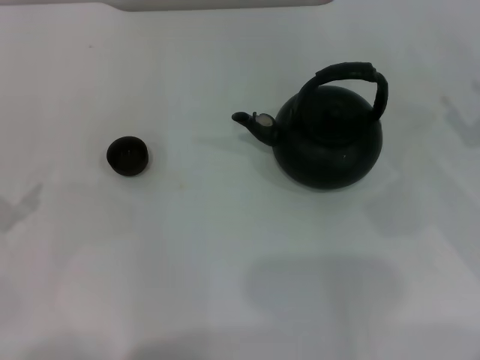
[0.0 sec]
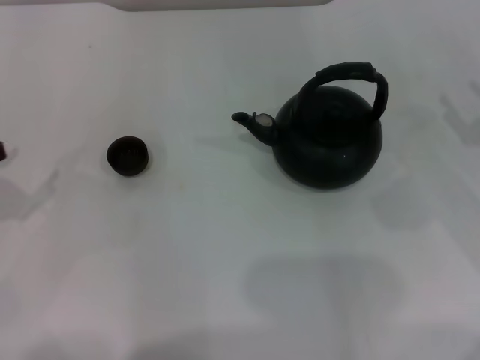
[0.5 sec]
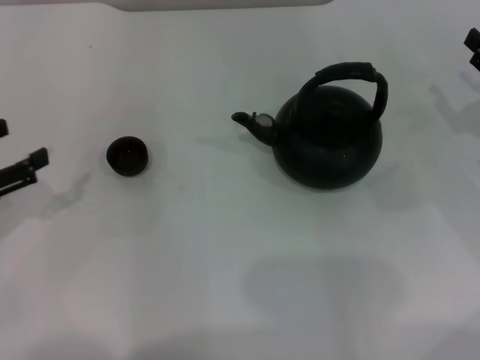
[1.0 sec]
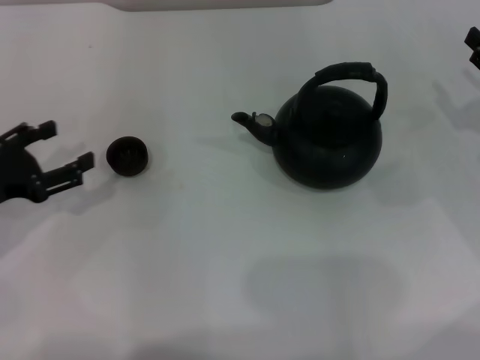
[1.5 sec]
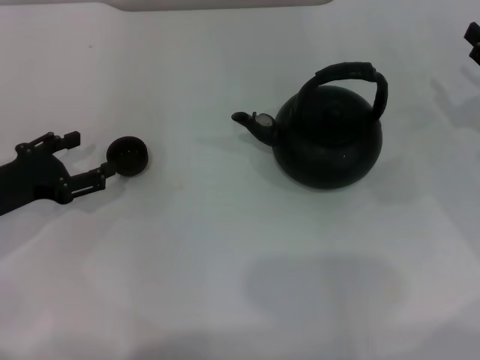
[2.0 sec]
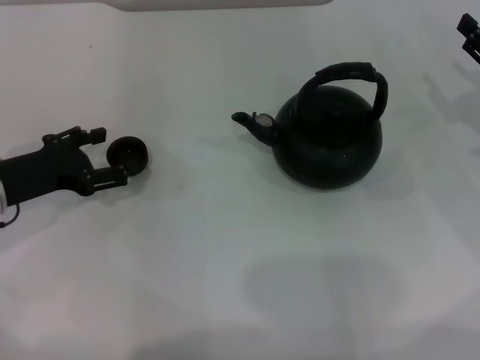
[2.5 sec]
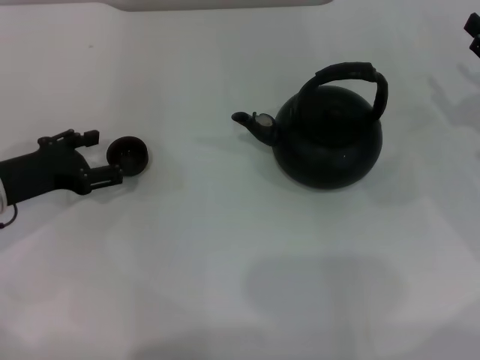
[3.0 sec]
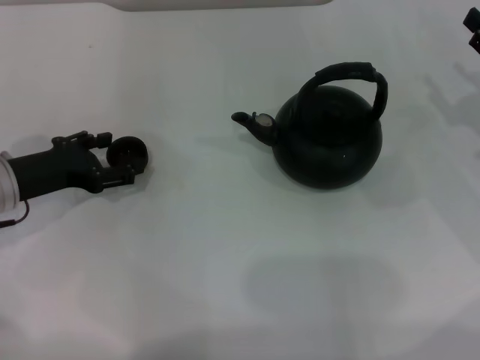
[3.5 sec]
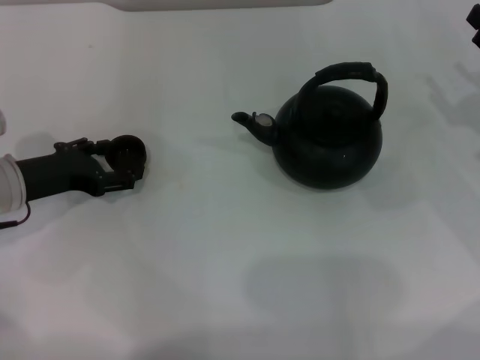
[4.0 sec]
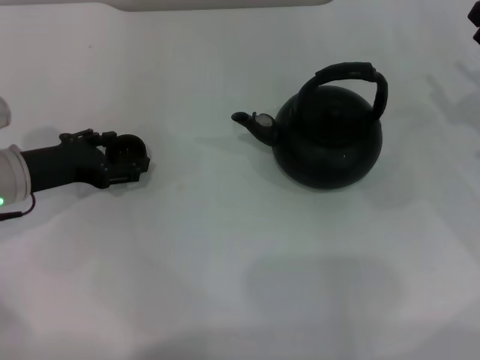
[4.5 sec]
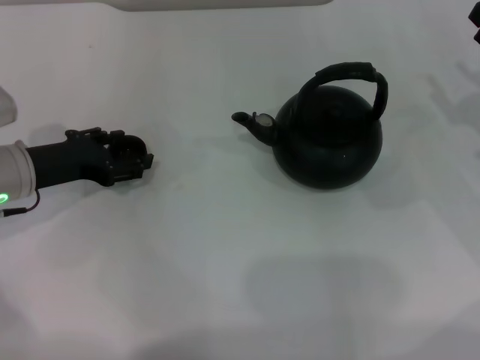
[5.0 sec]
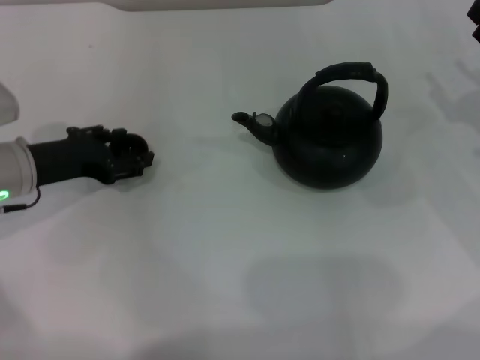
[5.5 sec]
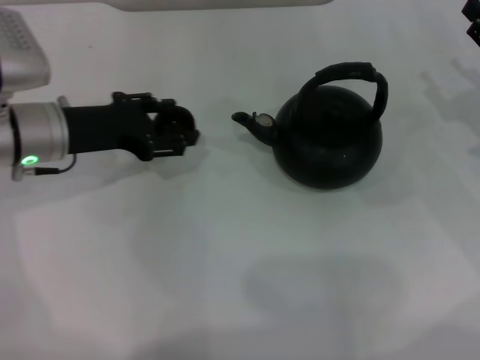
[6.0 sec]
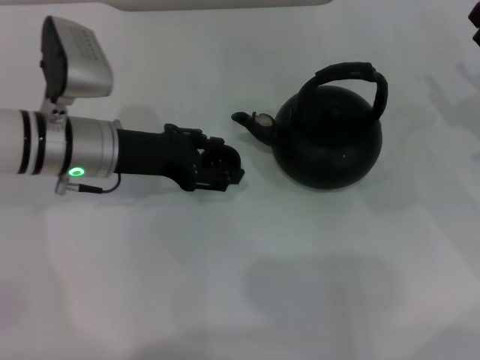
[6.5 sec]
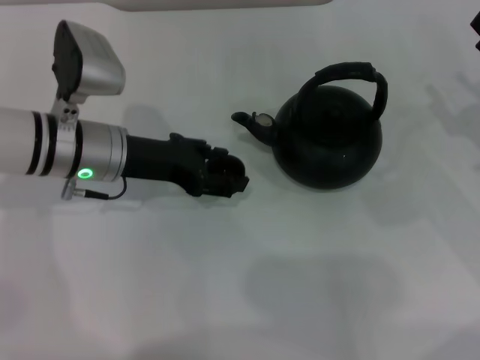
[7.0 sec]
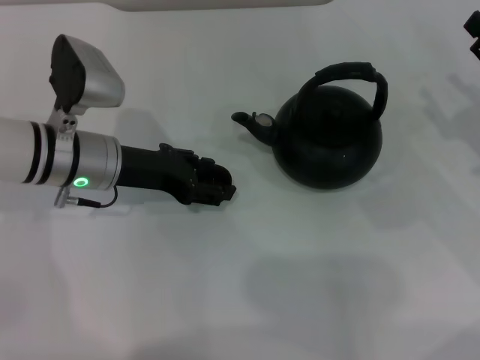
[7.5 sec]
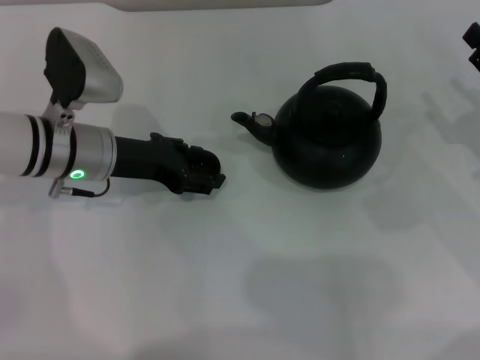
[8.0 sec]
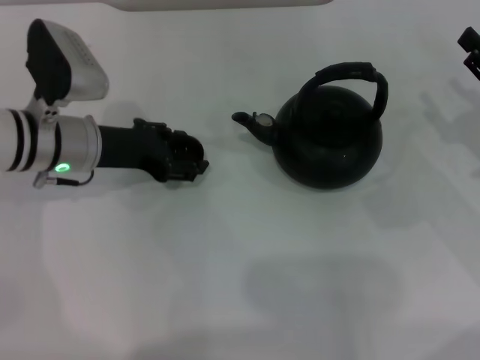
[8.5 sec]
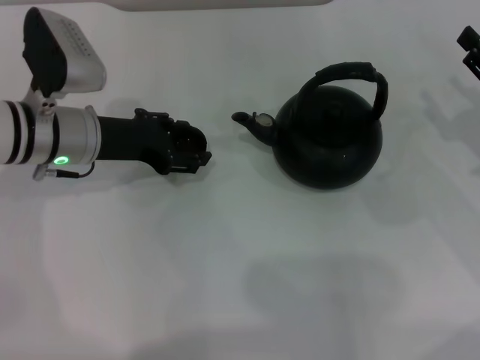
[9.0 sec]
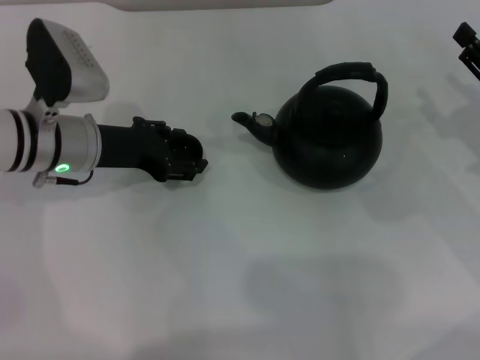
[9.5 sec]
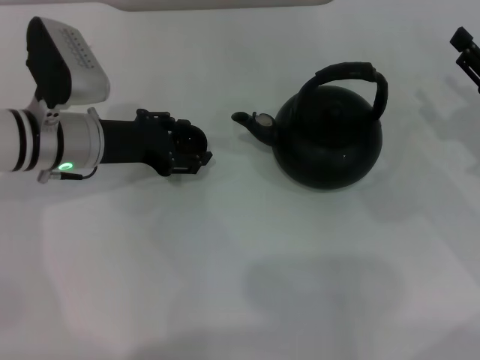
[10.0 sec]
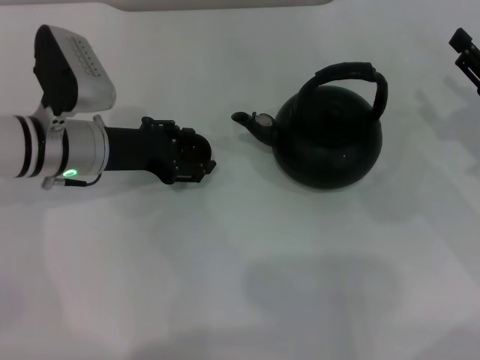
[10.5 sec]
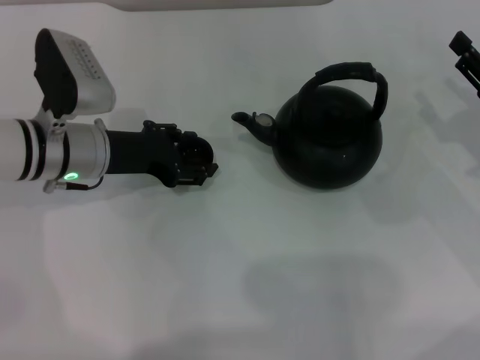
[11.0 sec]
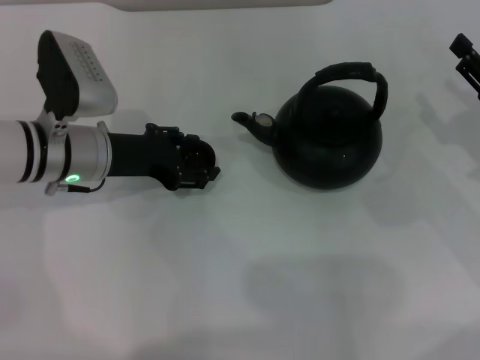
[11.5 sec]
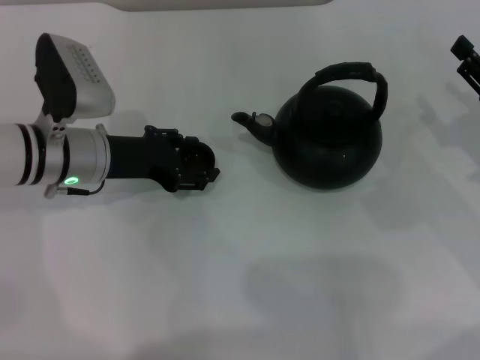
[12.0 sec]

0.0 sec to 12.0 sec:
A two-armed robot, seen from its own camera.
Task of the whole recording: Grasp the handle of the teapot with one hand and pour tea into the teacup.
Step, 0.0 sec to 5.5 sec: Pick up the teacup with the left gripper.
0.0 sec to 2.0 sec: The left gripper moves to the right, forward and downward, some 10 cm.
2.0 sec to 4.0 sec: The grippers stay close to where they were, moving slightly.
4.0 sec to 6.0 sec: The left gripper shifts about 5 cm to the right, and closes its fingers.
6.0 sec to 10.0 sec: The grippers move only a little.
10.0 sec to 12.0 sec: Both grippers stay put.

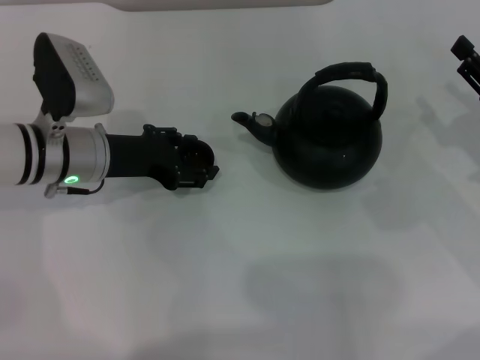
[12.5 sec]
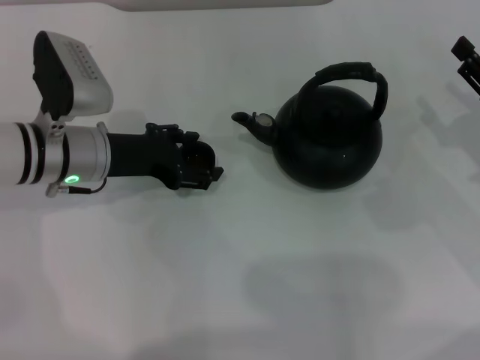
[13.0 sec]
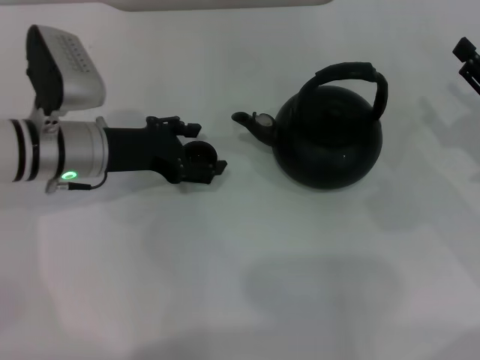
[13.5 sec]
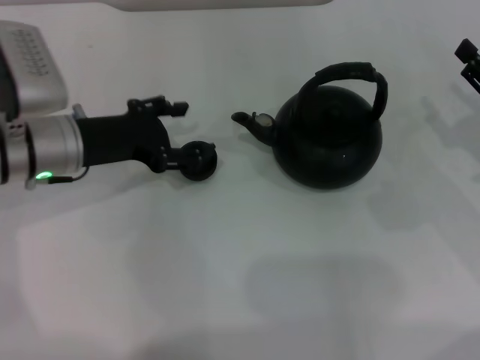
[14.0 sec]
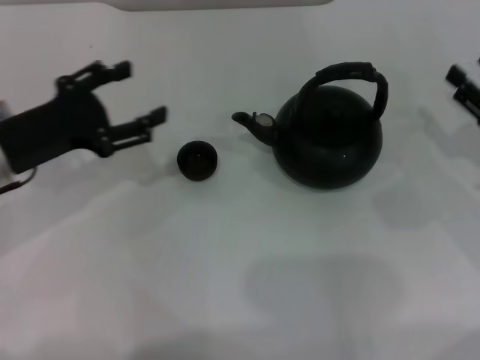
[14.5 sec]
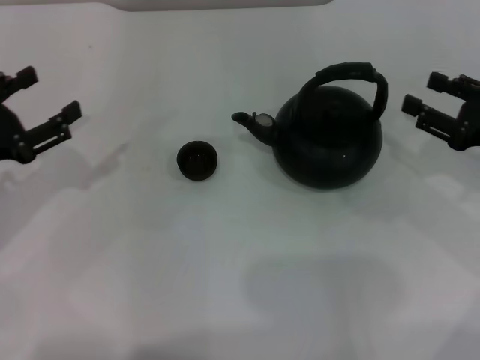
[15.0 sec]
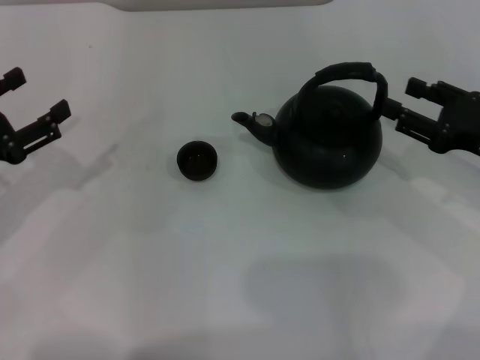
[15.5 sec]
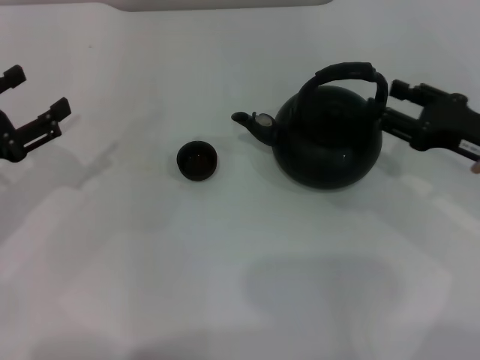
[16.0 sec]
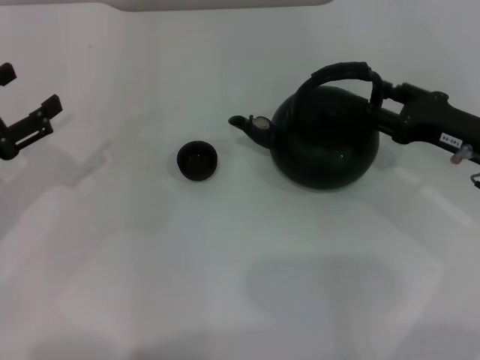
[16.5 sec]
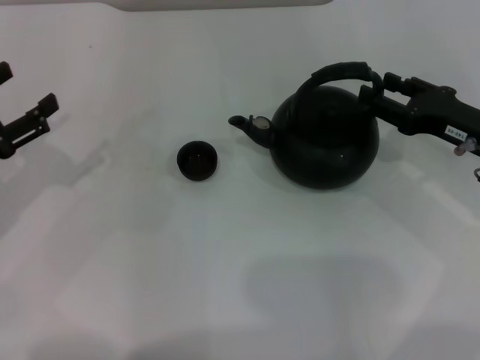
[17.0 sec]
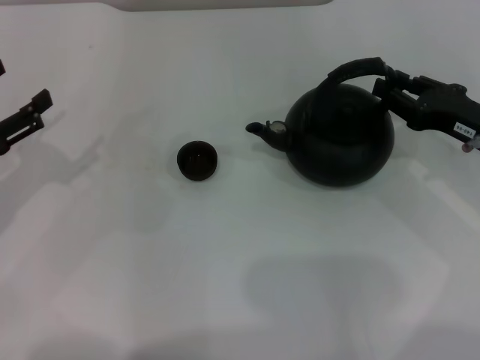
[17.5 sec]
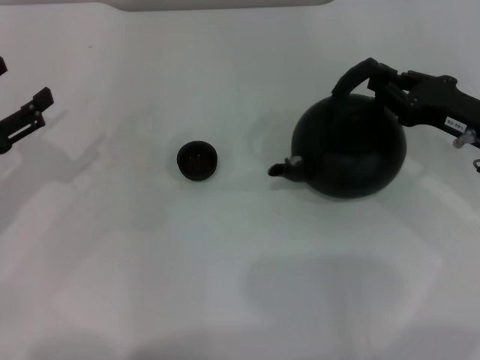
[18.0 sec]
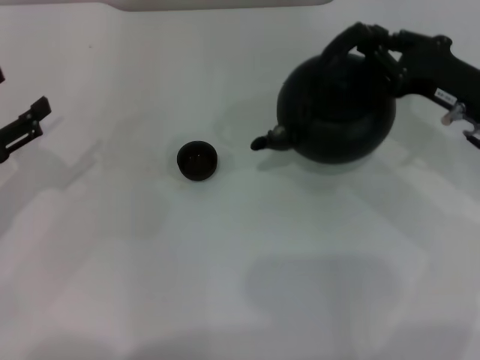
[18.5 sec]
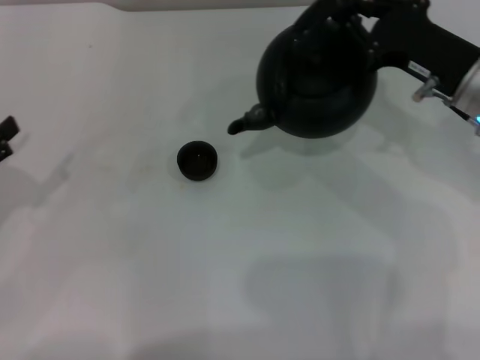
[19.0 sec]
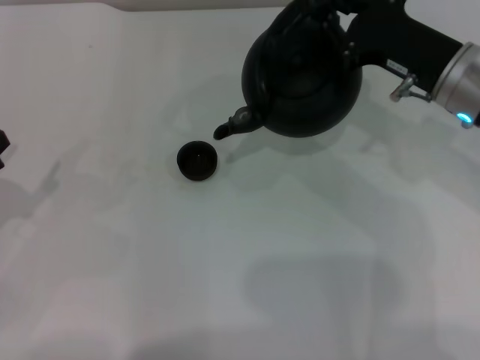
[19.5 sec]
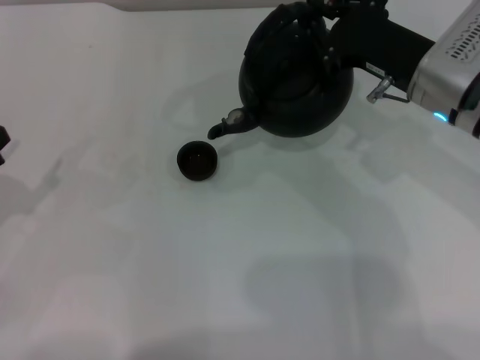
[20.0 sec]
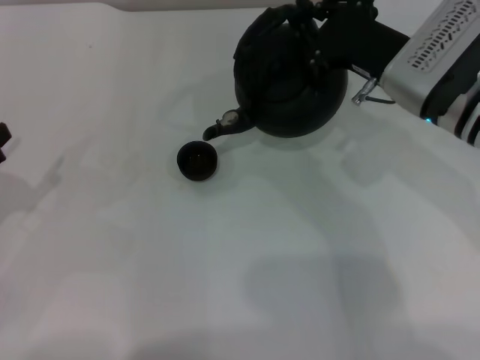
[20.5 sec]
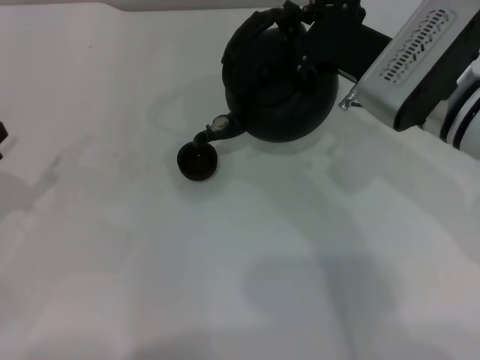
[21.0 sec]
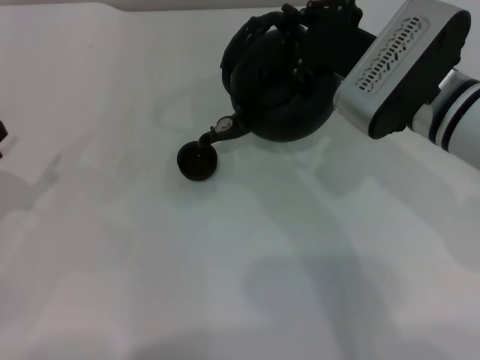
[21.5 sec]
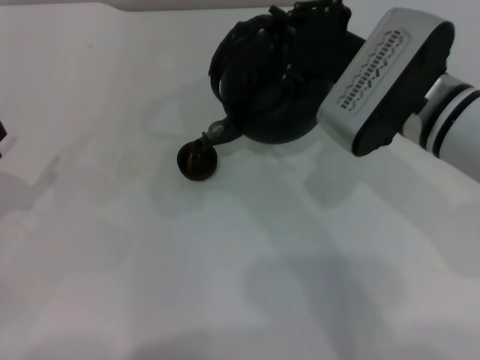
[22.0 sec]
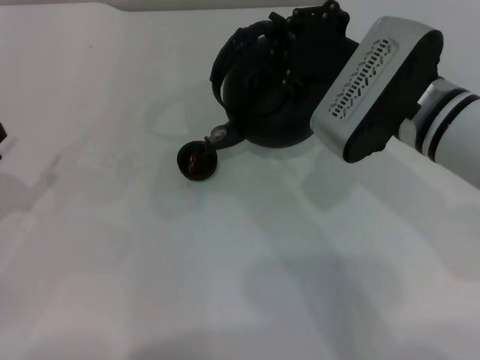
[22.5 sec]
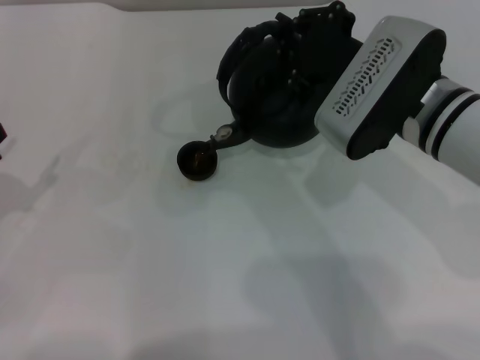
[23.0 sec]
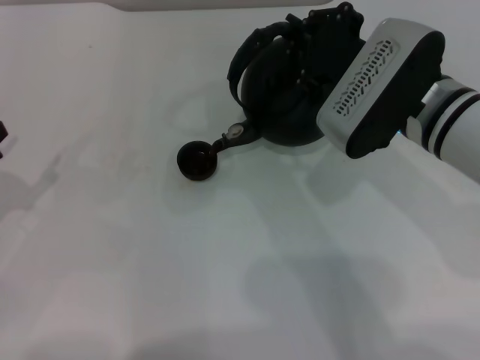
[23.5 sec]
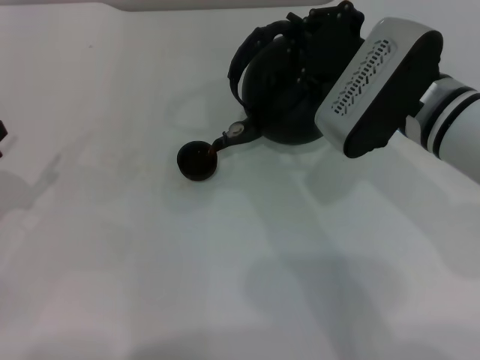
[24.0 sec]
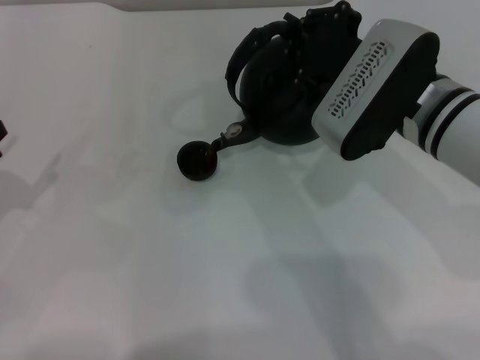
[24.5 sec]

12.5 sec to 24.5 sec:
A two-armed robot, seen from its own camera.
Task of the whole recording: Grasp the handle of the teapot with one hand and pour tea into the teacup.
Step, 14.0 sec to 18.5 sec: Pick up the teapot with the right gripper.
12.5 sec to 14.5 sec: The left gripper moves to the left and backward, approximately 10 cm, and opens its fingers.
14.5 sec to 16.5 sec: The two grippers go approximately 5 cm to the left.
16.5 sec to 18.5 sec: The right gripper closes its fingers.
18.5 sec to 20.5 sec: The right gripper heads to the left, covering approximately 10 cm.
20.5 sec to 22.5 sec: There are only small adjustments of the grippers.
22.5 sec to 24.5 sec: The two grippers keep their place.

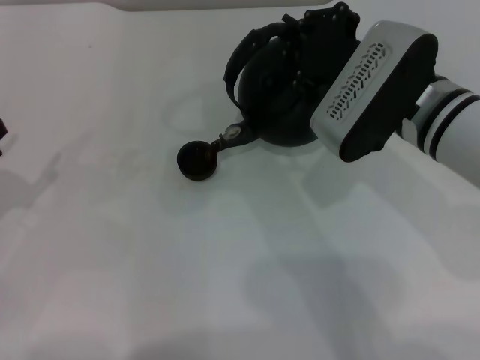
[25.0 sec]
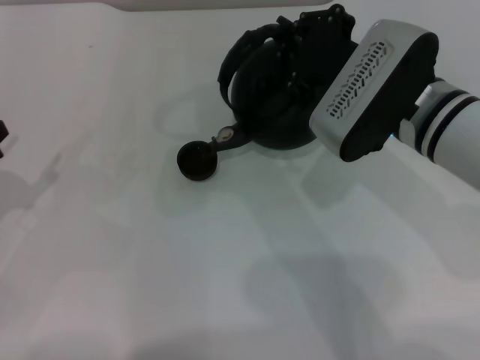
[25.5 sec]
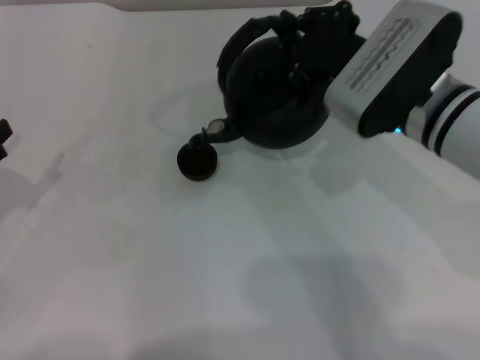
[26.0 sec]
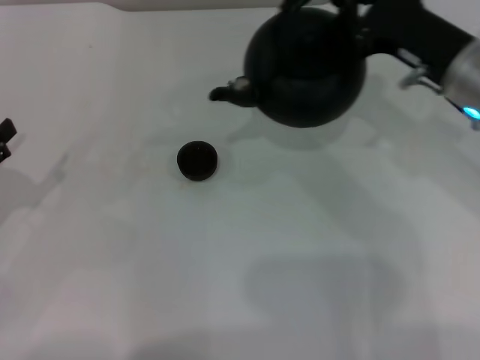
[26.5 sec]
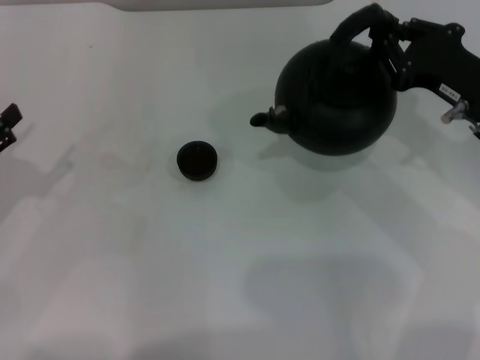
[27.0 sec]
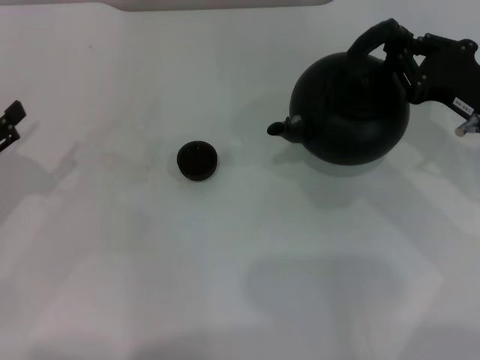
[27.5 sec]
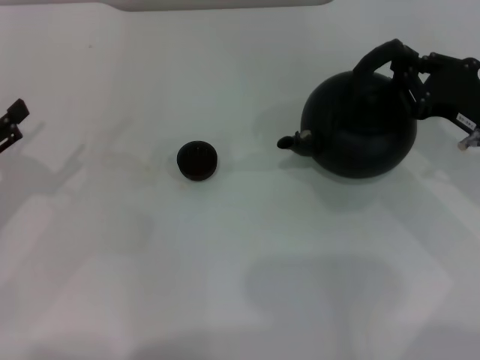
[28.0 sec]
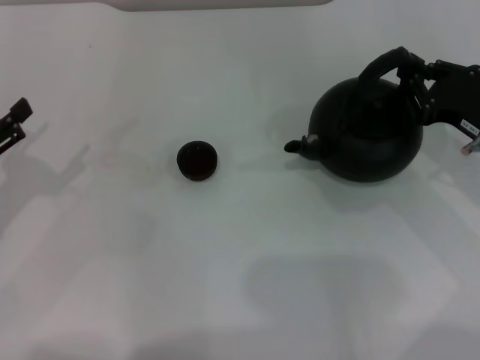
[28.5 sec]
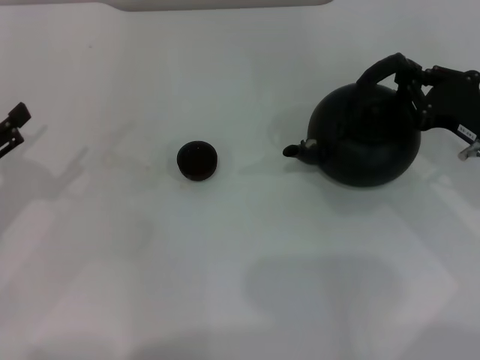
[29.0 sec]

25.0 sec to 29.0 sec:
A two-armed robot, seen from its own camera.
Task of the whole recording: Grasp the handle of the teapot with one hand and pour tea into the teacup.
25.0 sec to 27.0 sec: The right gripper goes roughly 10 cm to the right.
27.0 sec to 29.0 sec: The right gripper ends up approximately 5 cm from where it was.
